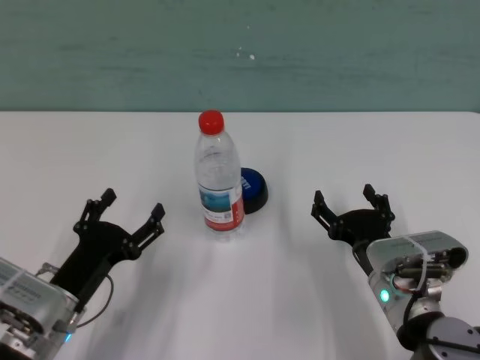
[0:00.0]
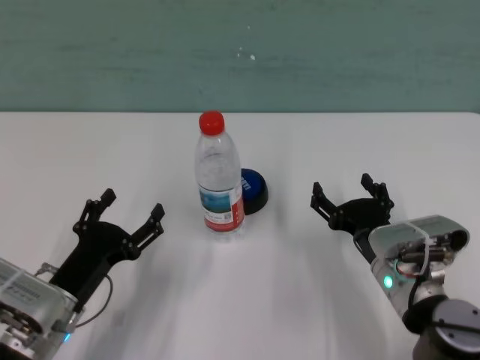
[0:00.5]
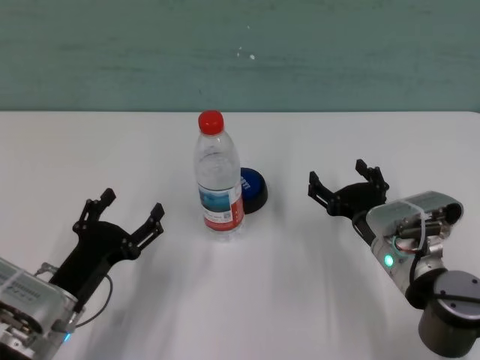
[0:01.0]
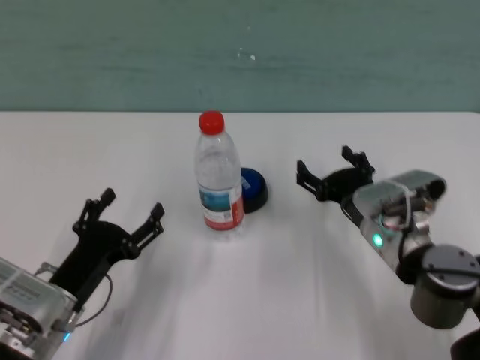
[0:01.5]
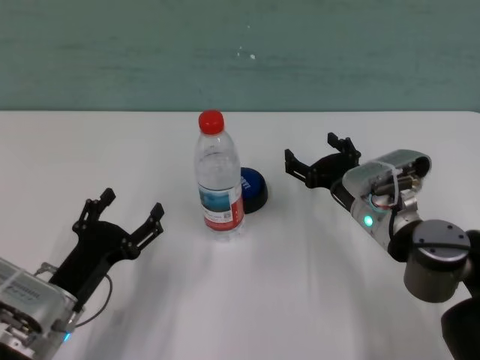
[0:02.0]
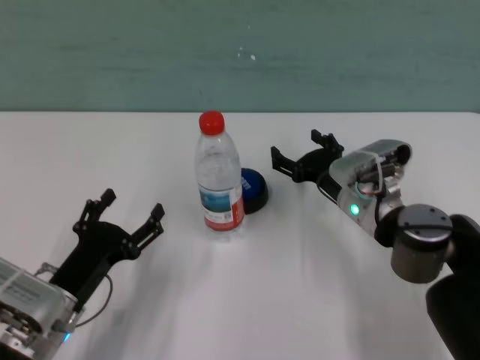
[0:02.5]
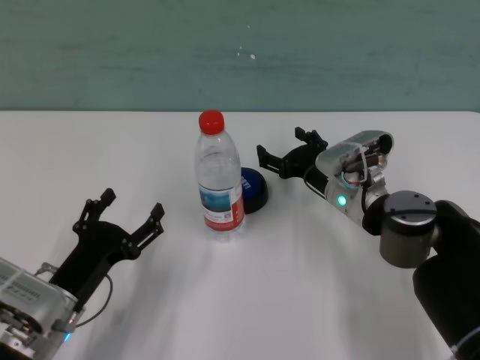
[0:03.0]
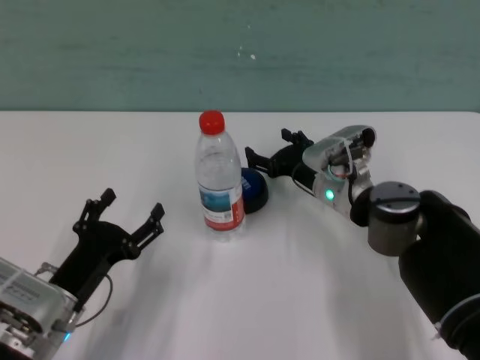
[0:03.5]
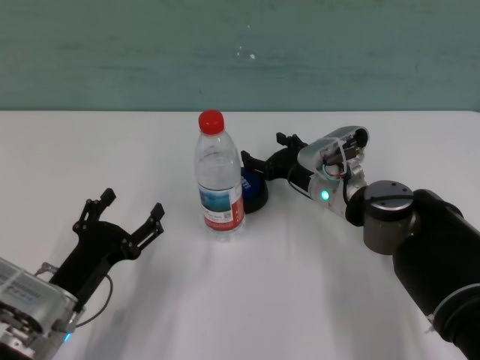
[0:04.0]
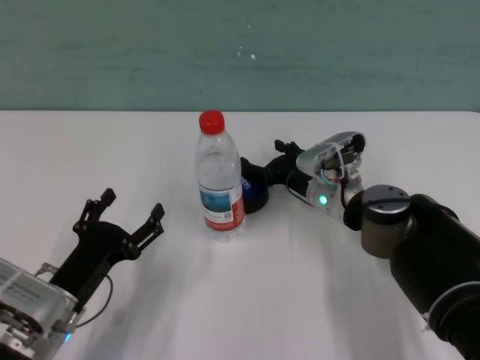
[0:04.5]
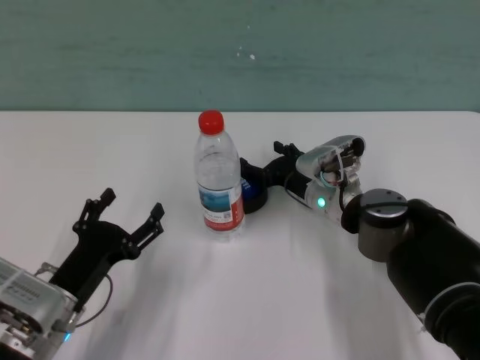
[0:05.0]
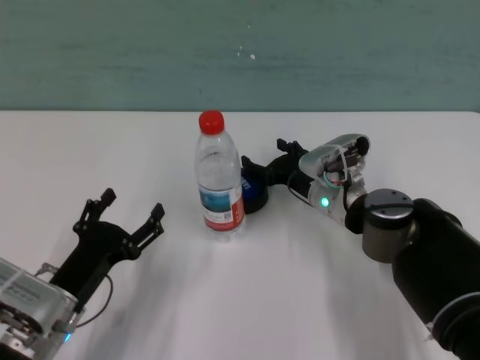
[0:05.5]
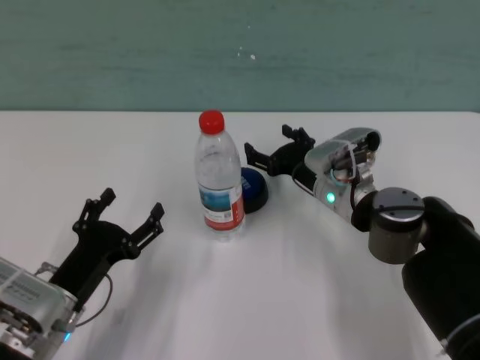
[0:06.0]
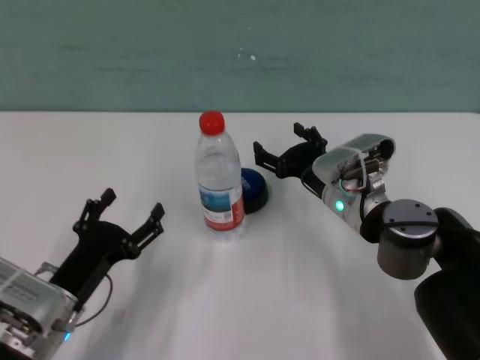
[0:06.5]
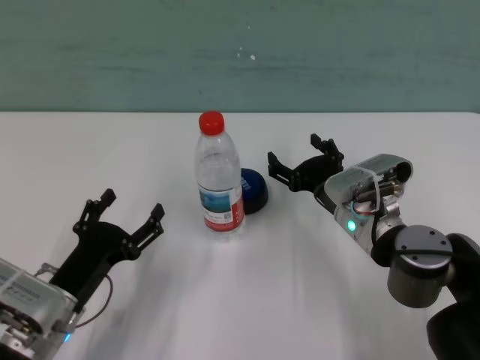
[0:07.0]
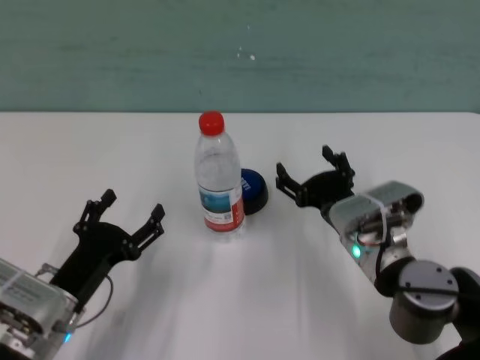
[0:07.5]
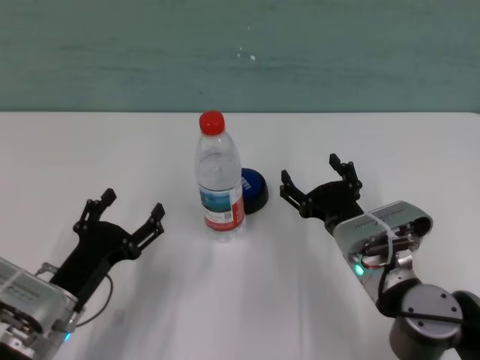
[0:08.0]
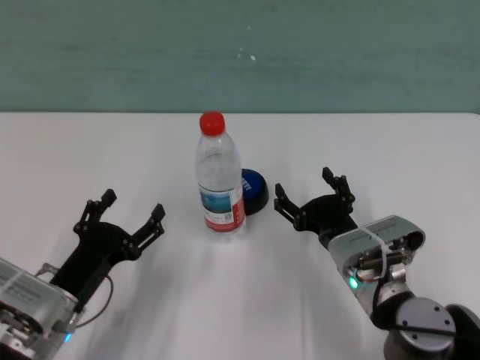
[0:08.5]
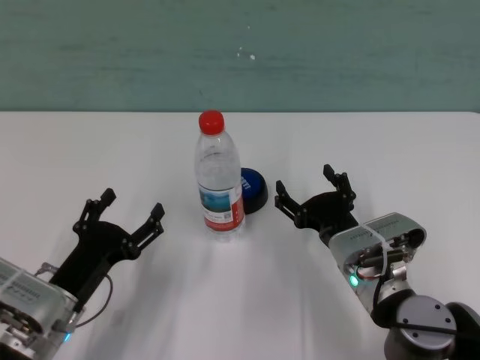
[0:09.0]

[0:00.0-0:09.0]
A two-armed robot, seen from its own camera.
Task of the whole recording: after avoiding the water bottle on the table, press the button.
Step, 0:00.0 to 0:05.5: Press the button blocked by the bottle with right gripper.

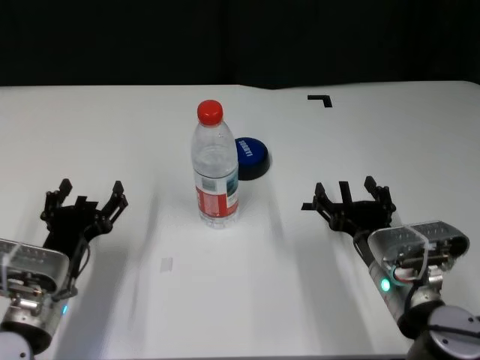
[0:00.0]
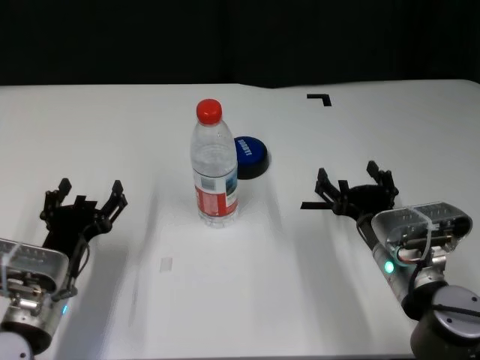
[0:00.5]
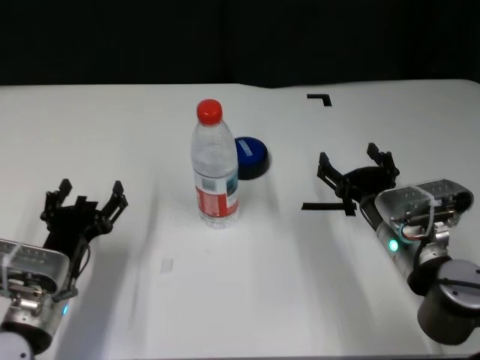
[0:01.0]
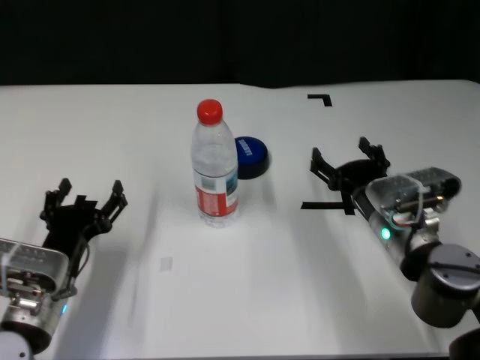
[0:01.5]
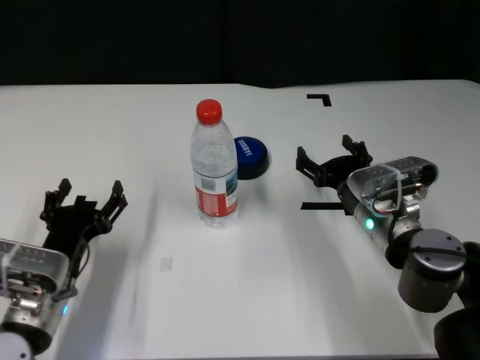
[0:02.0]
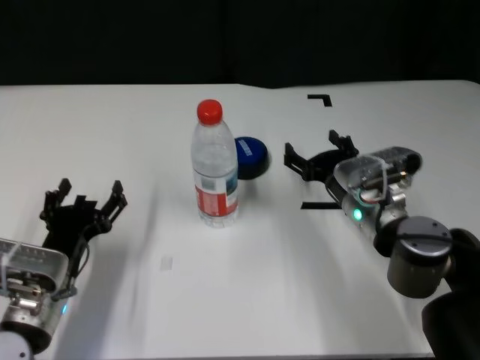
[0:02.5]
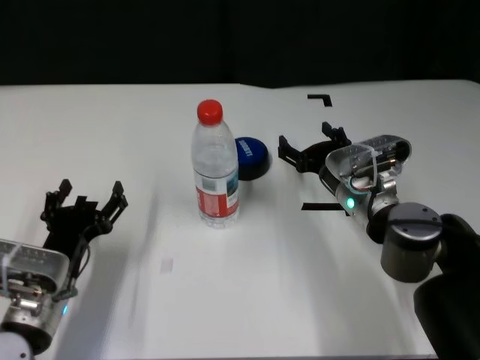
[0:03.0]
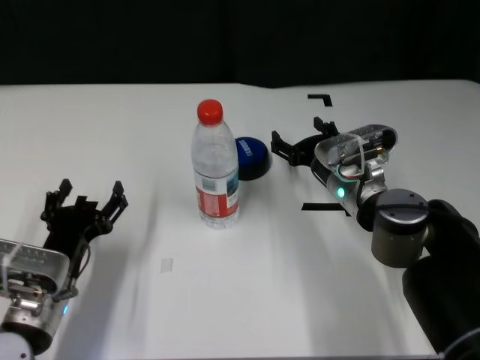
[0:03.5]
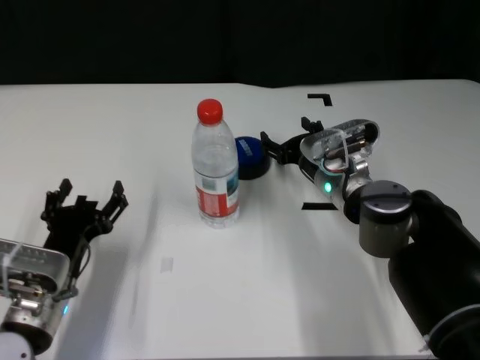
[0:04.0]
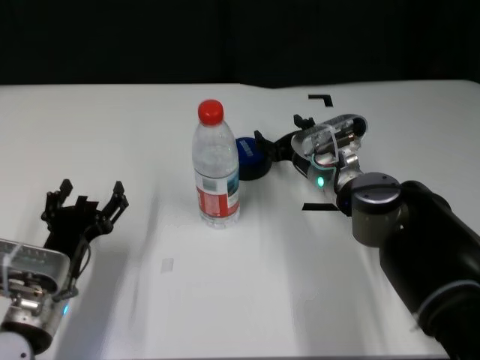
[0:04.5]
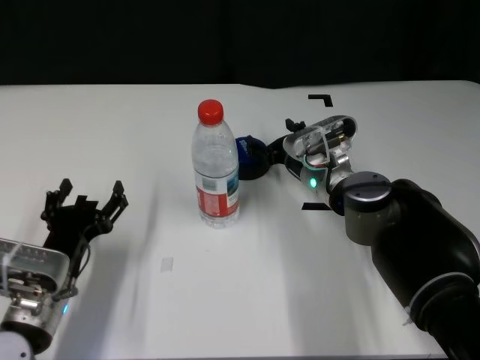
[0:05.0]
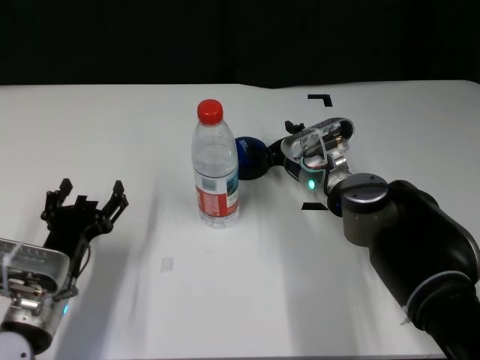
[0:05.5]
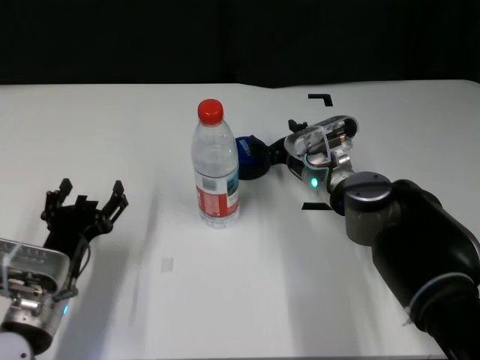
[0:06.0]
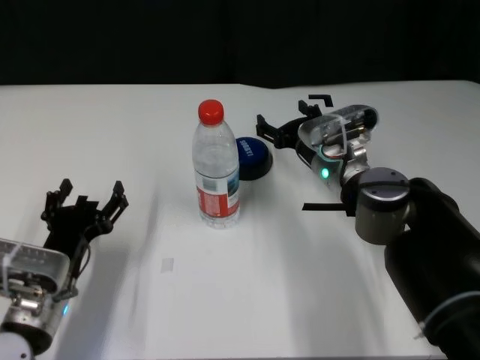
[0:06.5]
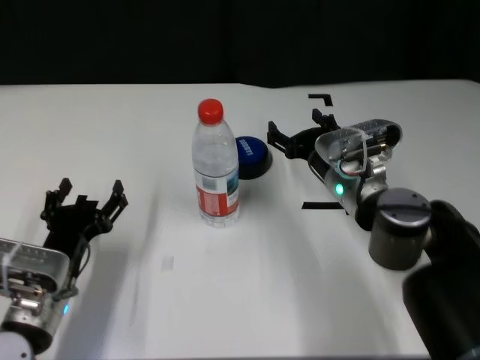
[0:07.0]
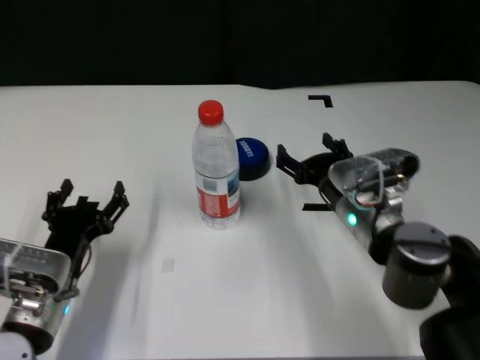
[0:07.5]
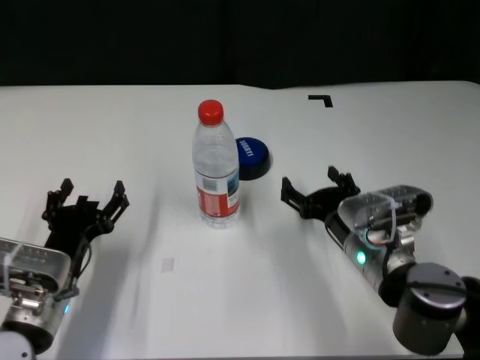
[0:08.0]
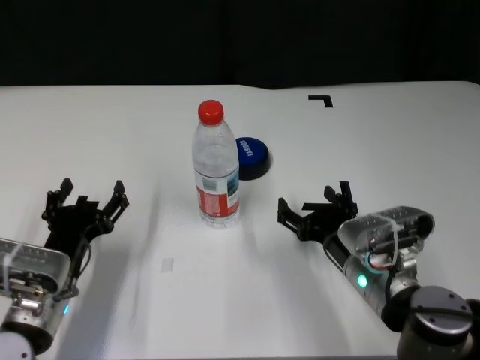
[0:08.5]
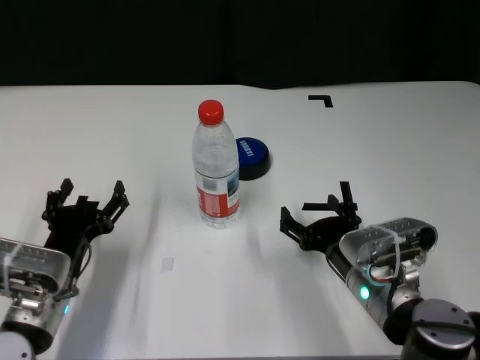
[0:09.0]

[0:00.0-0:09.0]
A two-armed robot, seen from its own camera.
Task of the whole recording: after avoiding the water bottle on the table, press the button.
Step, 0:00.0 to 0:06.0: Press the button blocked by the bottle with right gripper.
